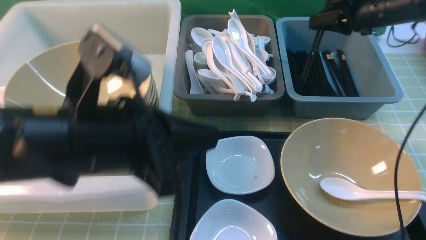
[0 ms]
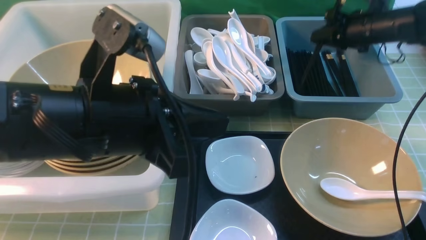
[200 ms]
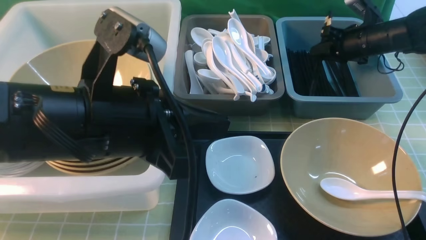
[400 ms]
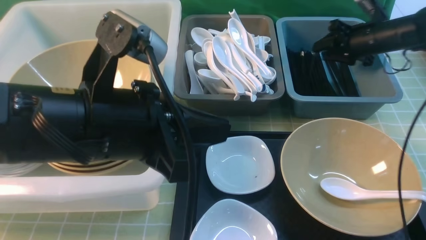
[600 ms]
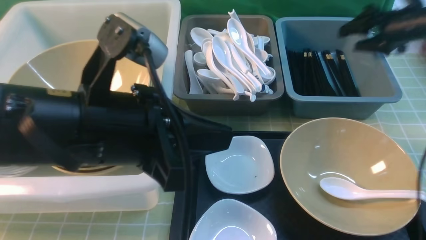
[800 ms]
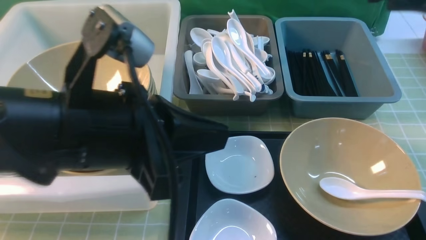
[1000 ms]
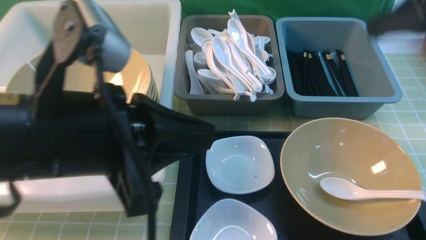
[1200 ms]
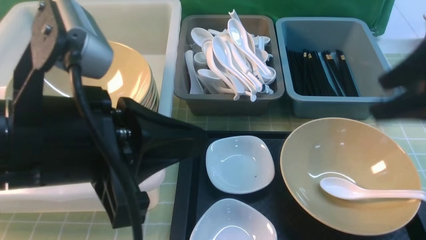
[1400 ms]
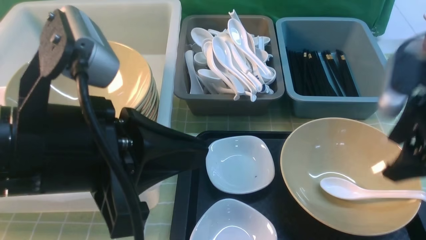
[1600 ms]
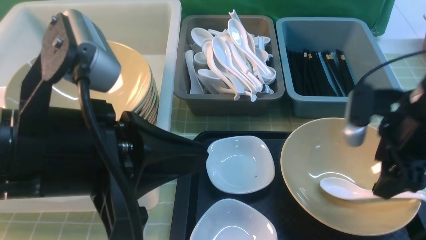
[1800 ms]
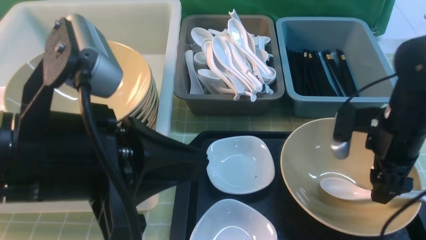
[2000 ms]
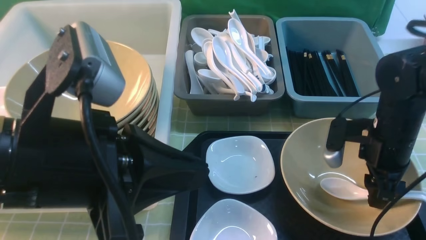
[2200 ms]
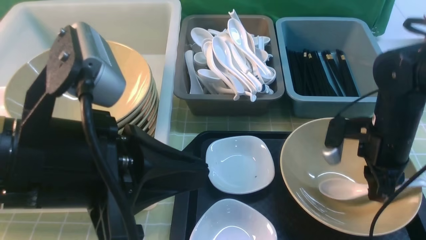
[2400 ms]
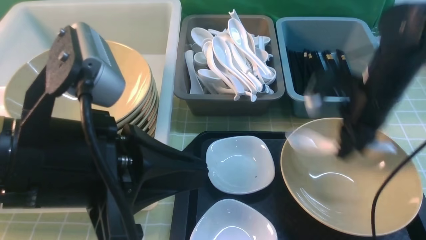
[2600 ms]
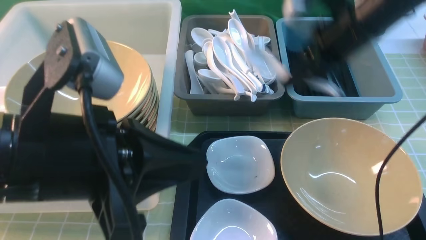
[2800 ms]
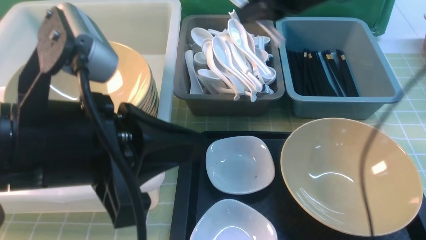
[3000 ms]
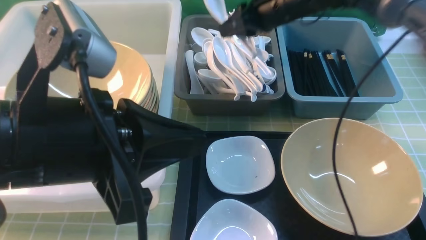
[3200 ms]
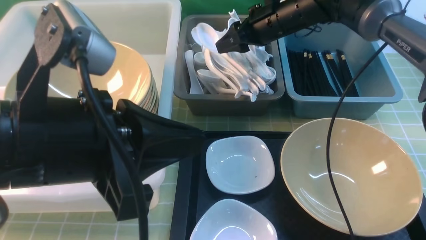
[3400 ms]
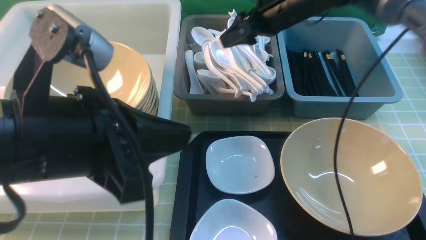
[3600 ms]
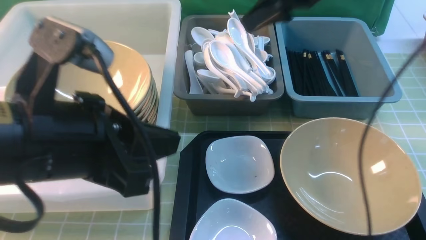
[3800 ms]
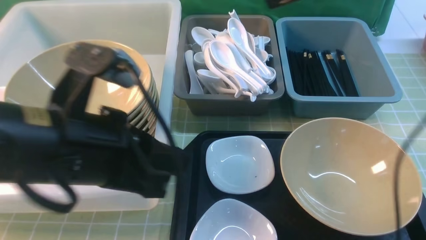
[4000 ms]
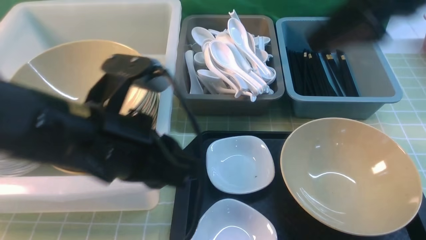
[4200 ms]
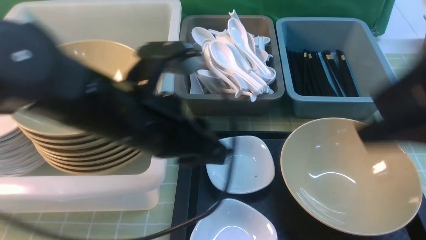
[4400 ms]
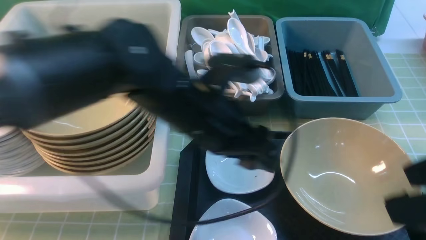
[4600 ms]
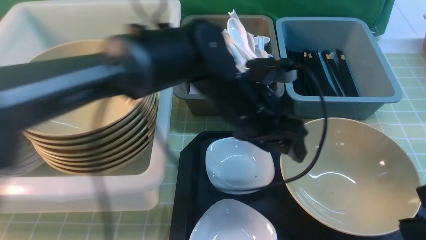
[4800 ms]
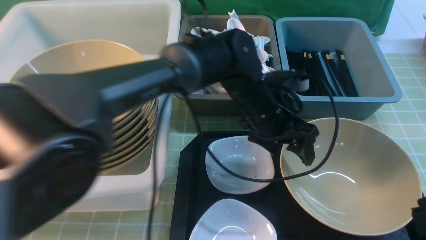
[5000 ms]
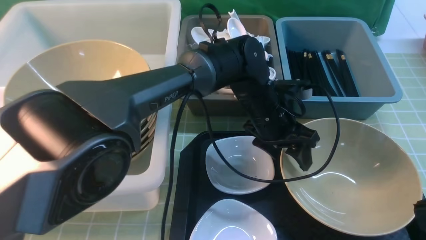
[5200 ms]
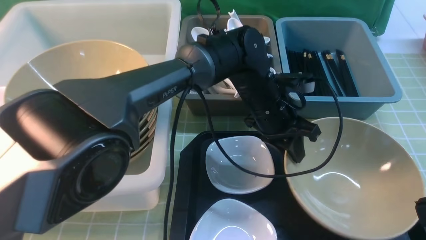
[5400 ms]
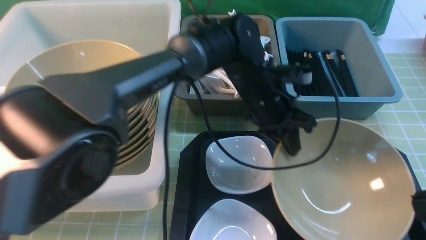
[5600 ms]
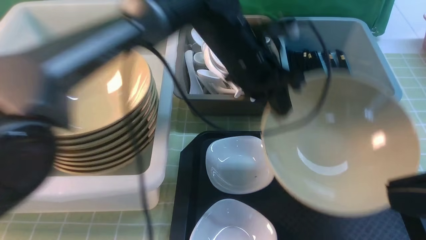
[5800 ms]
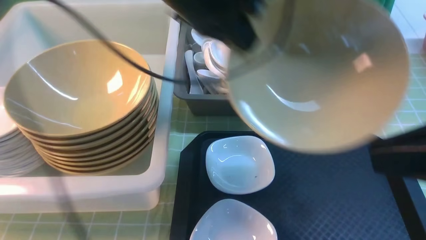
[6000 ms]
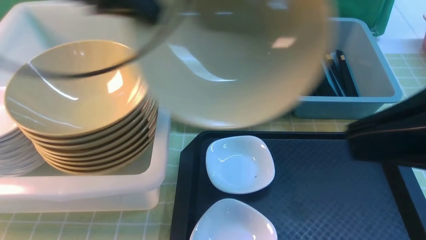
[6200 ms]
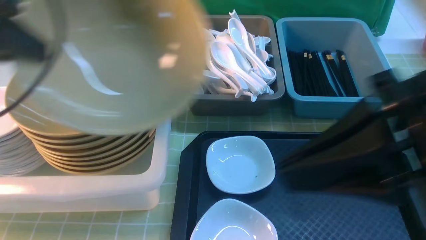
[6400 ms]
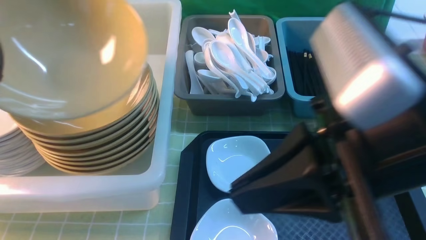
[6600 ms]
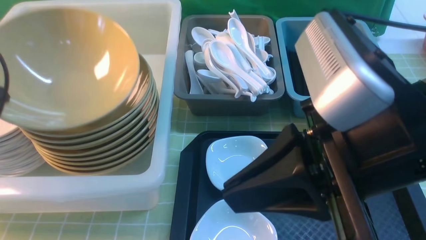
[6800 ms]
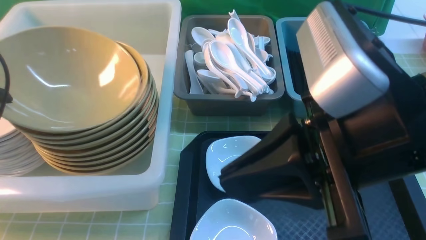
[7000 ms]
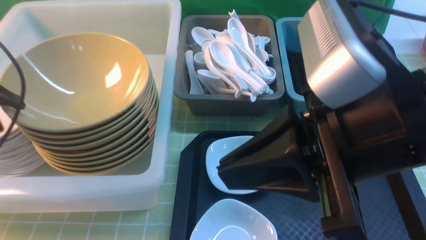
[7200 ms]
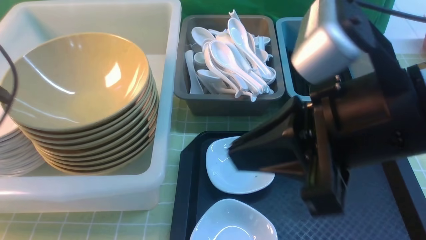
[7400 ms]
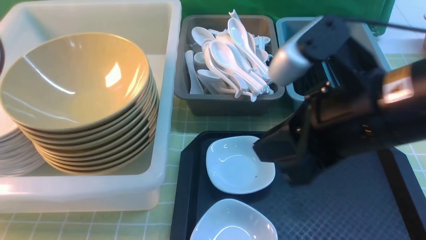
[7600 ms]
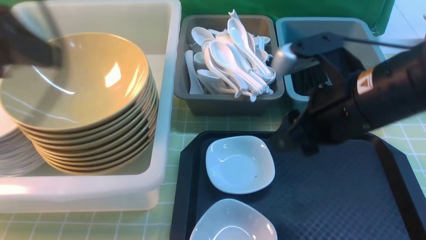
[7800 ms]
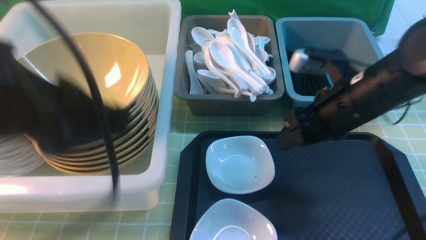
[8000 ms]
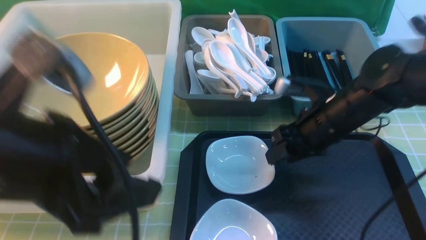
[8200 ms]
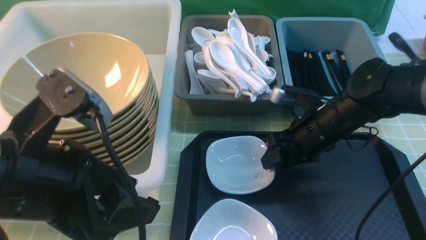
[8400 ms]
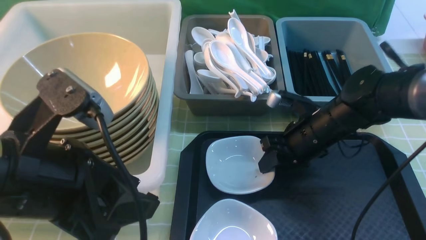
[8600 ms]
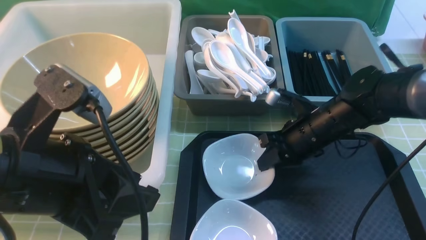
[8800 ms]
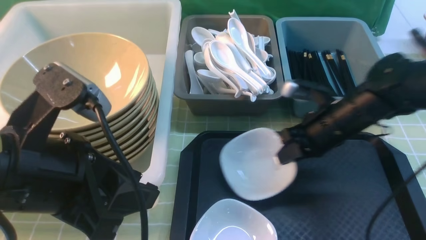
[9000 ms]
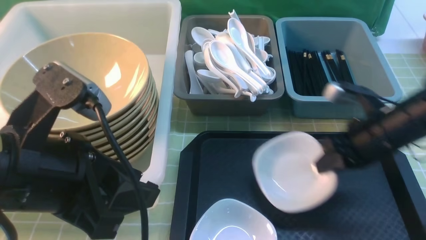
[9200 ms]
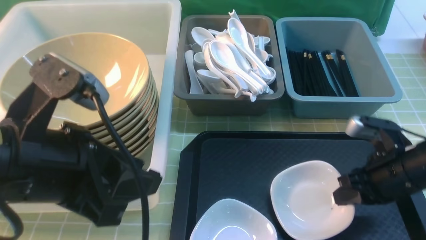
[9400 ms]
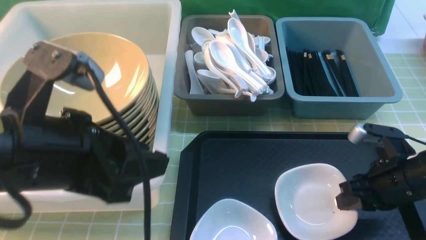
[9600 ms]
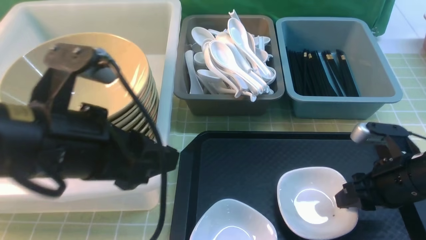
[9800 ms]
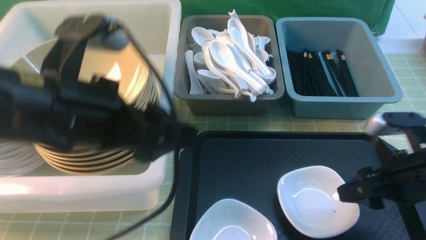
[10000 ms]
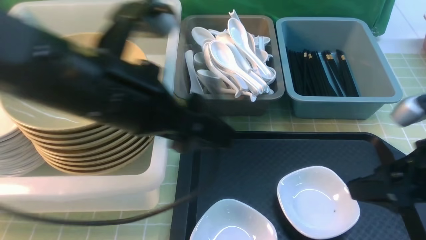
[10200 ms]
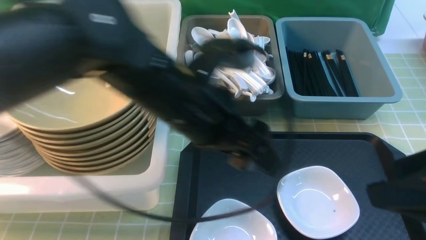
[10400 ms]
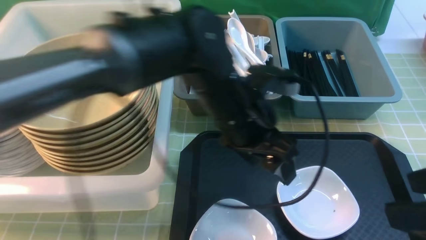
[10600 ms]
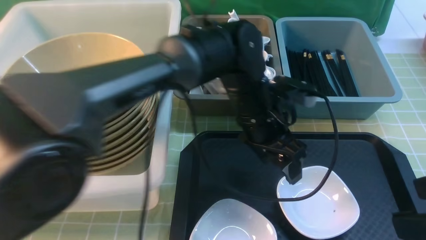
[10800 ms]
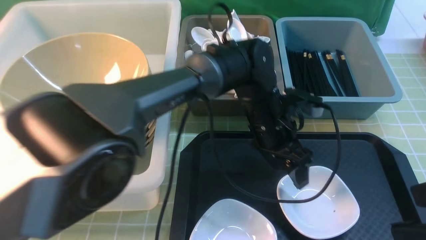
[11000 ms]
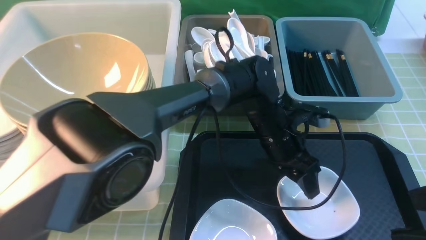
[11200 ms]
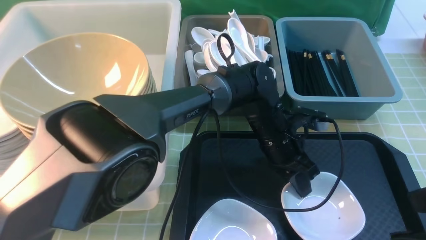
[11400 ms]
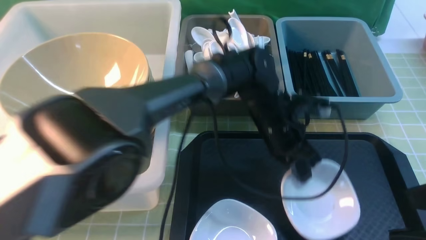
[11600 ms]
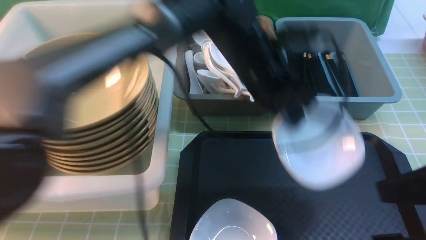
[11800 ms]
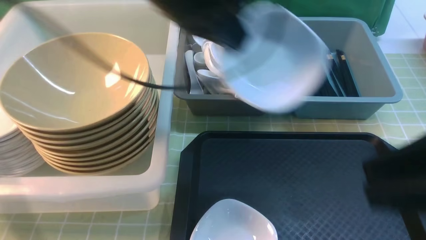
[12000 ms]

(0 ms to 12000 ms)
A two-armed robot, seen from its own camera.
Task of the whole recording: on green table put chopsticks spoon bowls plates into blue grey white boxes.
Step, 800 ms - 2400 ms: use the right arm to grab the soup spoon in the middle.
Step, 2800 ms - 3600 ms: use the right arm to put the soup spoon into the small storage box in the middle.
Step, 3800 ms - 5600 ms: use the left arm to grab the yellow noodle bowl on the left.
Step, 6000 ms - 7200 ms: use the left arm to put the noodle bowl into the large storage box on the left.
Step, 7400 ms - 8800 ms: use the right arm to grab the plate.
Step, 9000 ms - 10200 ms: use the right arm to put the plate on the tray.
Step, 10400 ms - 11400 ms: use the left arm to grab the plate.
0 ms - 1600 ms: The right gripper moves backward, roughly 25 cm, and opens up.
1600 ms - 3000 ms: The right gripper heads forward and to the left, covering approximately 20 cm, and closes up.
3000 ms - 4400 ms: The left gripper shifts roughly 10 cm forward, to the right and downward, and opens. The right gripper is displaced backward by some 25 cm, and opens.
4400 ms - 6000 ms: The left gripper is displaced forward and upward by roughly 15 cm, and closes; the right gripper moves backward, roughly 5 cm, and closes its fingers.
6000 ms - 7600 ms: The left gripper heads to the left and backward, covering roughly 25 cm, and opens, while the right gripper shifts some 15 cm forward, to the left and downward.
7600 ms - 9000 ms: The left gripper moves to the right, backward and downward, some 15 cm, and closes up; the right gripper shifts approximately 20 cm downward, forward and to the right.
9000 ms - 10400 ms: The right gripper shifts some 25 cm backward and upward, and opens its fingers. The left gripper shifts about 15 cm to the right and forward, and opens its fingers.
10400 ms - 12000 ms: The left gripper moves upward, to the left and forward, about 15 cm, and closes. The right gripper is displaced upward by roughly 10 cm, and closes.

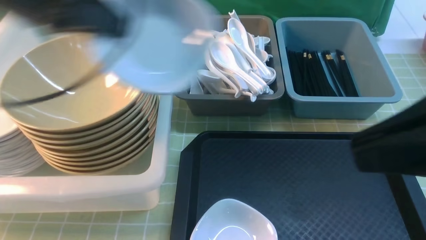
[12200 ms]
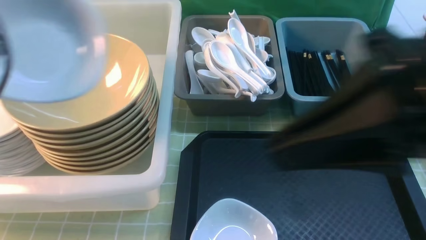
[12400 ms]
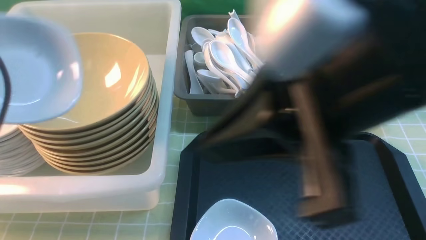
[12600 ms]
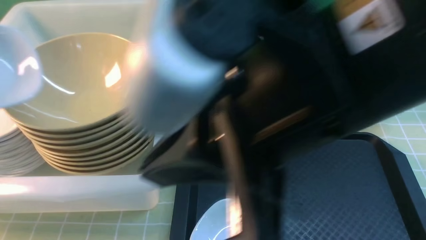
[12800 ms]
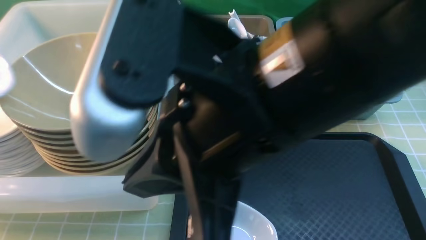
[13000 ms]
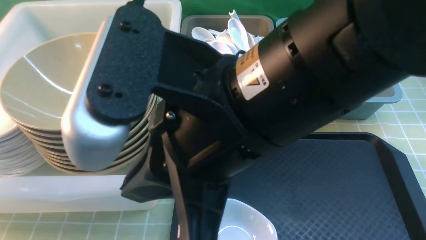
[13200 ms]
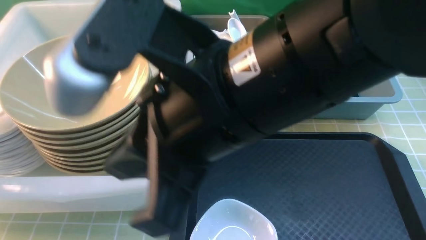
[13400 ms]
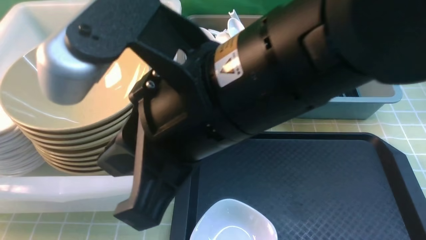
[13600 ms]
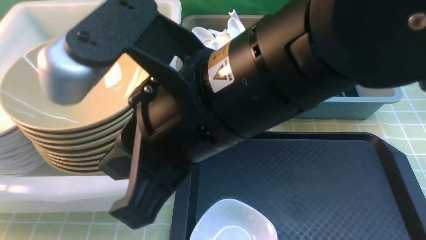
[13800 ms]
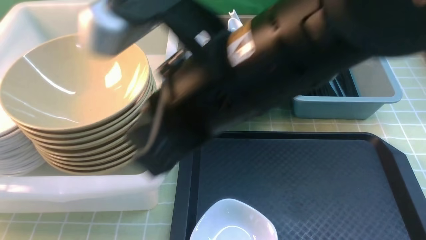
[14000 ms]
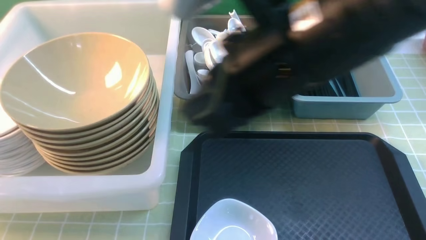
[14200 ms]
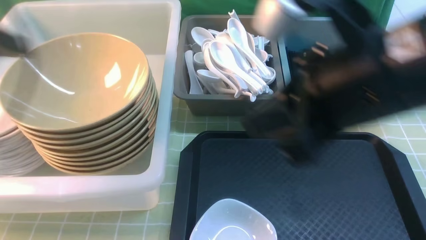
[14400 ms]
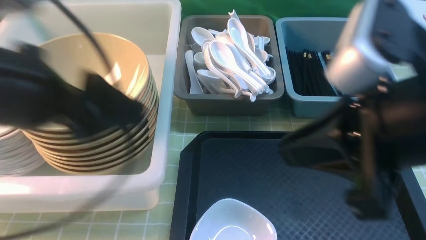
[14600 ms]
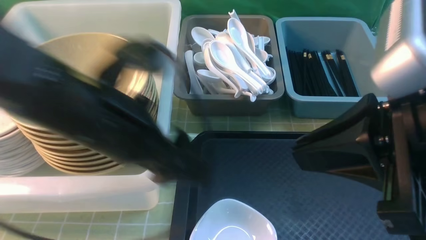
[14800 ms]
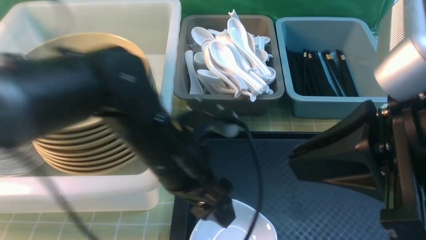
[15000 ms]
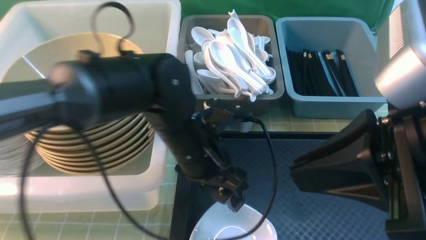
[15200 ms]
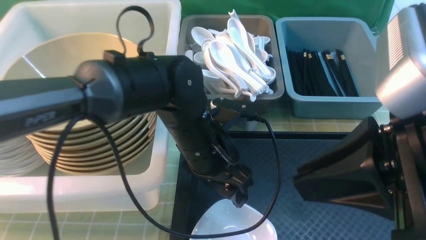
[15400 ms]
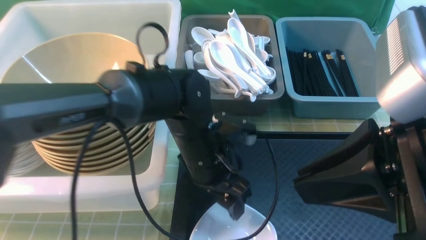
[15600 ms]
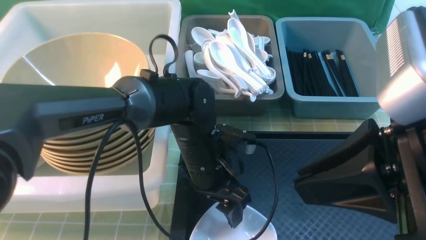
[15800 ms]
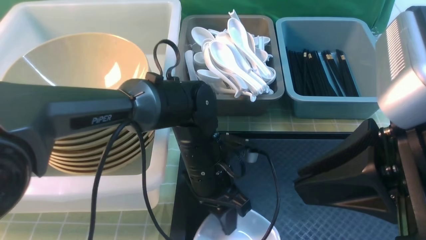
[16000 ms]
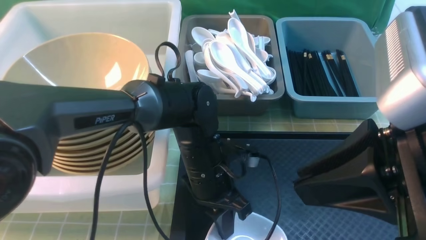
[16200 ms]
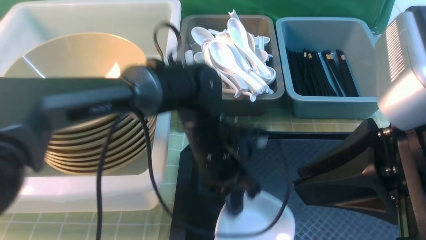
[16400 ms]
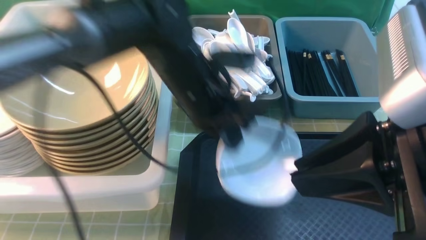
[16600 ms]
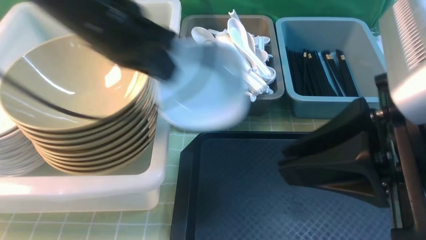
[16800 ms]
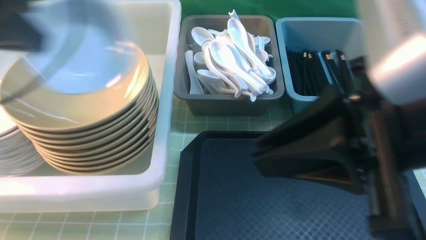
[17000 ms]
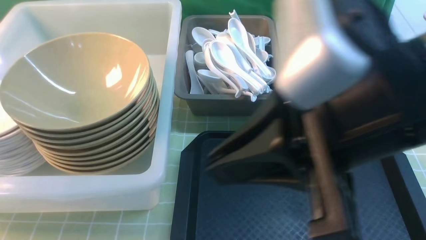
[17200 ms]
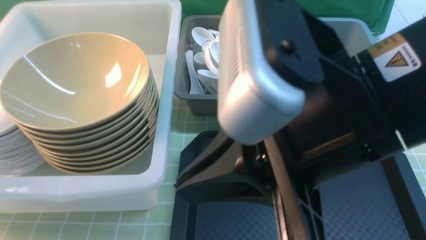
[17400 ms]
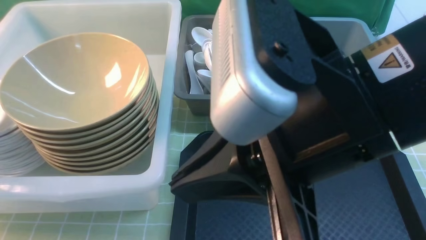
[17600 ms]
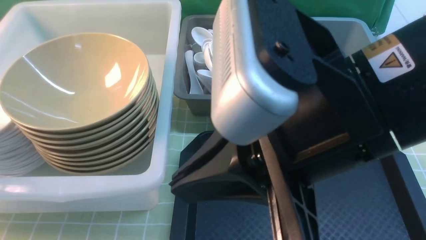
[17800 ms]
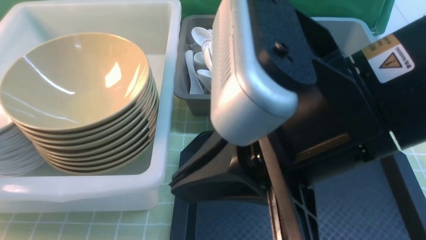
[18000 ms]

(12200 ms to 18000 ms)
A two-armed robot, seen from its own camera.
Task of the whole recording: on green table put chopsticks spoon bowls plates into blue grey white boxes.
Step, 12200 ms - 14000 ms: use the left arm to put the plate into the large storage box on the left.
Step, 14200 ms - 16600 ms: use the left arm to grab the plate.
12200 ms - 13600 ms: The right gripper moves to the left, some 20 cm, while the left gripper is displaced to the left and downward by approximately 25 cm.
13600 ms - 15000 ms: The left gripper is displaced to the right by about 35 cm, and opens up; the right gripper goes roughly 15 cm to the right.
15000 ms - 16600 ms: The left gripper moves forward, approximately 5 cm, reaches about 10 cm downward, then returns, and closes.
16600 ms - 18000 ms: The right gripper moves to the left, some 10 cm; the left gripper moves to the left, roughly 35 cm.
